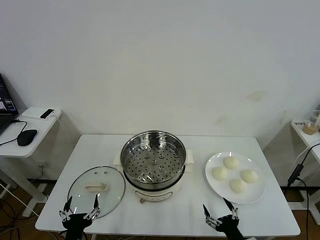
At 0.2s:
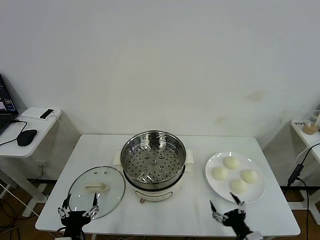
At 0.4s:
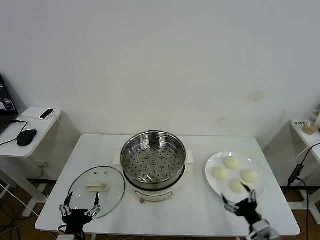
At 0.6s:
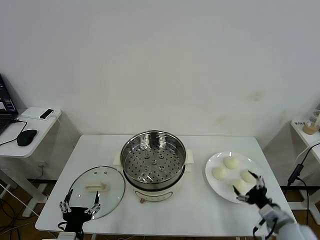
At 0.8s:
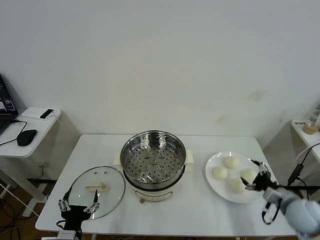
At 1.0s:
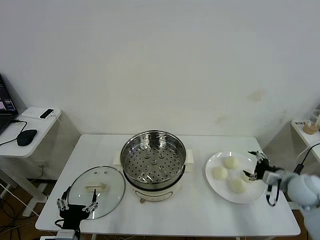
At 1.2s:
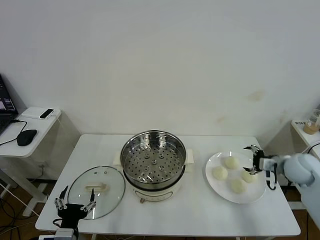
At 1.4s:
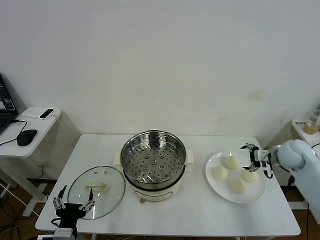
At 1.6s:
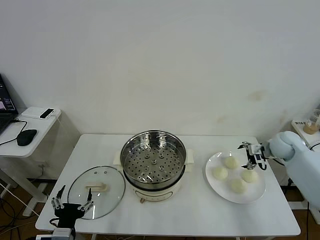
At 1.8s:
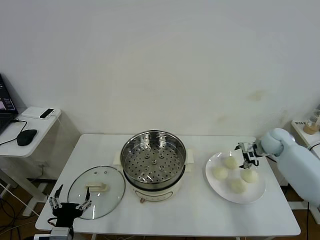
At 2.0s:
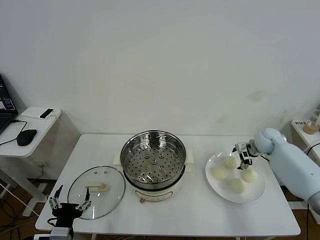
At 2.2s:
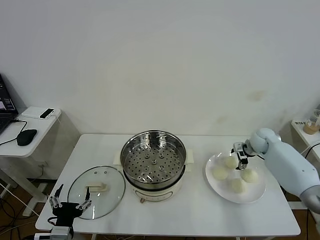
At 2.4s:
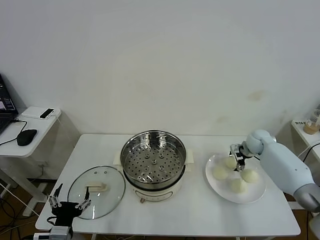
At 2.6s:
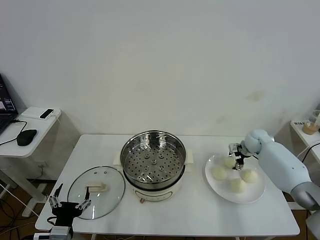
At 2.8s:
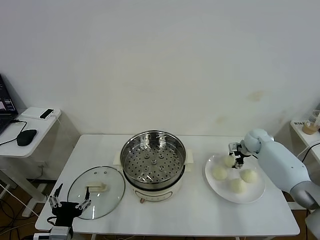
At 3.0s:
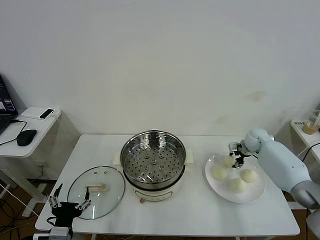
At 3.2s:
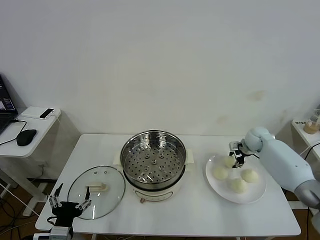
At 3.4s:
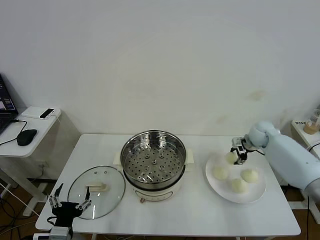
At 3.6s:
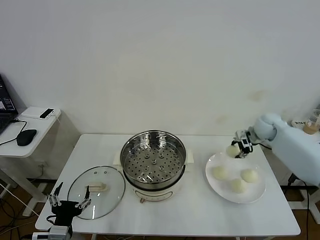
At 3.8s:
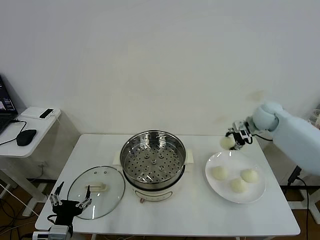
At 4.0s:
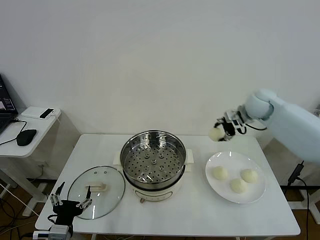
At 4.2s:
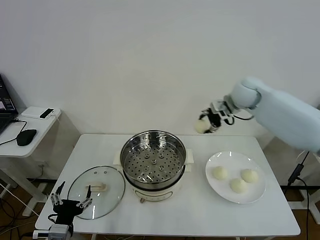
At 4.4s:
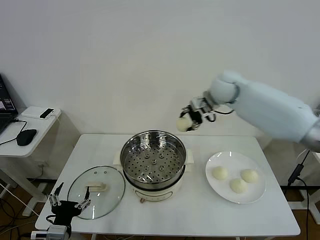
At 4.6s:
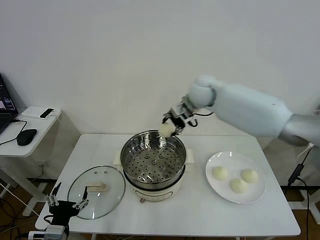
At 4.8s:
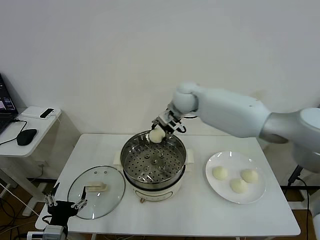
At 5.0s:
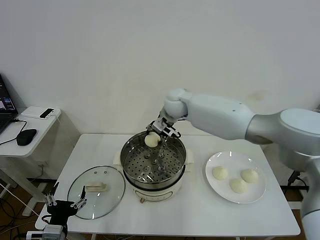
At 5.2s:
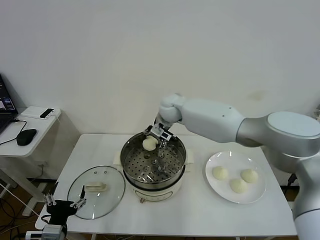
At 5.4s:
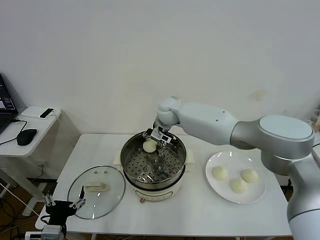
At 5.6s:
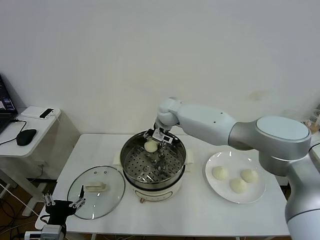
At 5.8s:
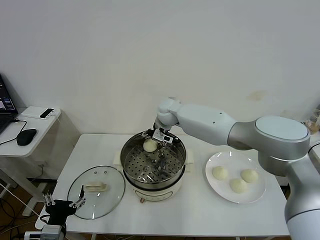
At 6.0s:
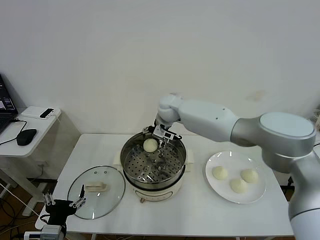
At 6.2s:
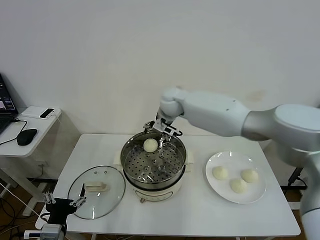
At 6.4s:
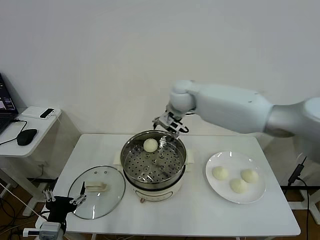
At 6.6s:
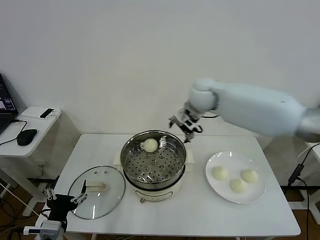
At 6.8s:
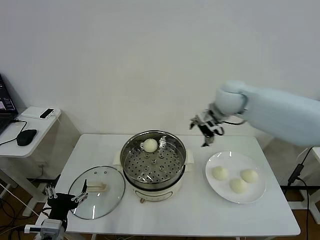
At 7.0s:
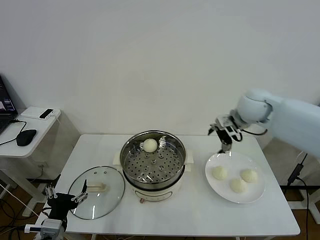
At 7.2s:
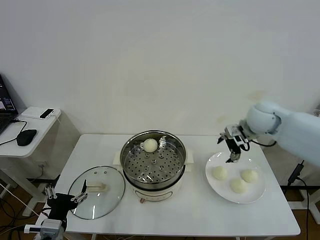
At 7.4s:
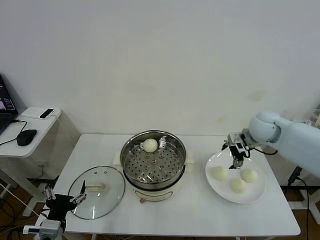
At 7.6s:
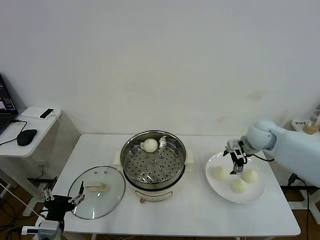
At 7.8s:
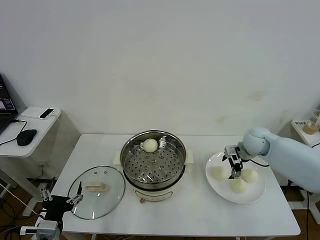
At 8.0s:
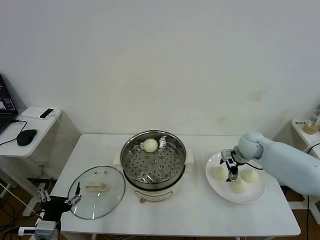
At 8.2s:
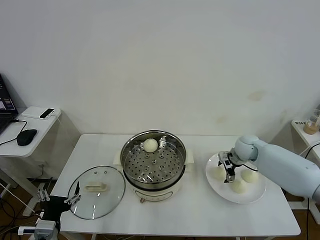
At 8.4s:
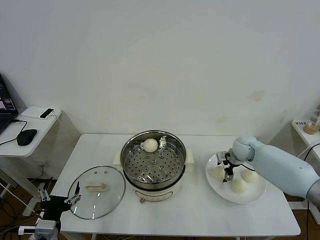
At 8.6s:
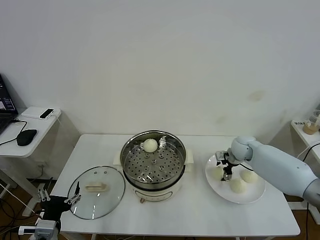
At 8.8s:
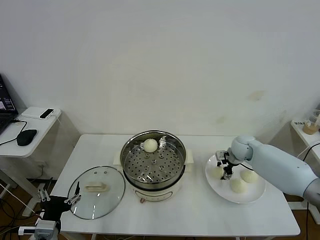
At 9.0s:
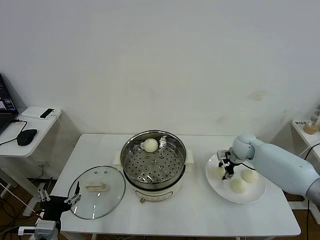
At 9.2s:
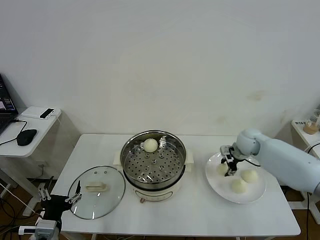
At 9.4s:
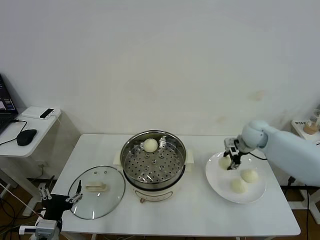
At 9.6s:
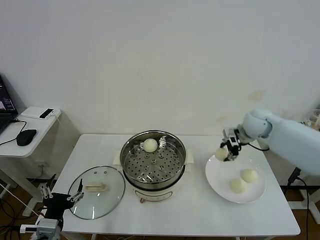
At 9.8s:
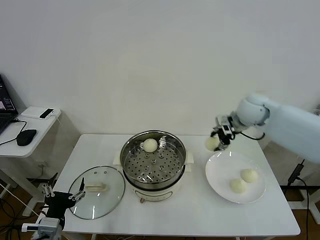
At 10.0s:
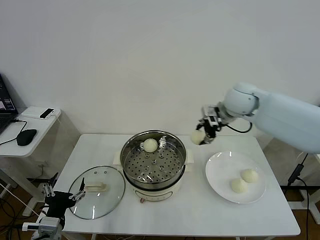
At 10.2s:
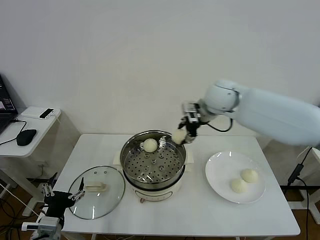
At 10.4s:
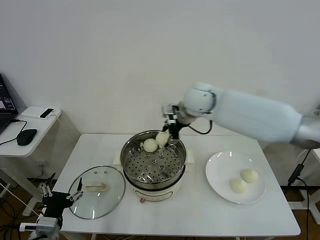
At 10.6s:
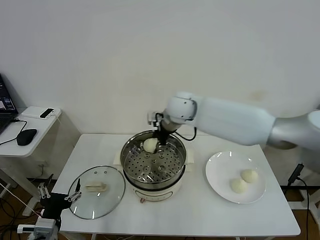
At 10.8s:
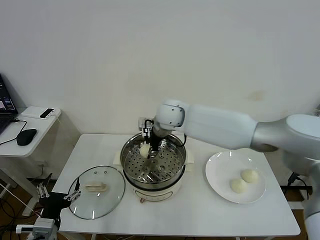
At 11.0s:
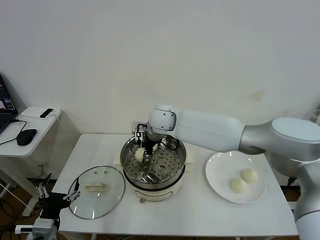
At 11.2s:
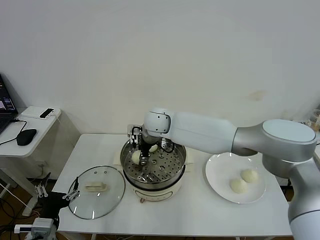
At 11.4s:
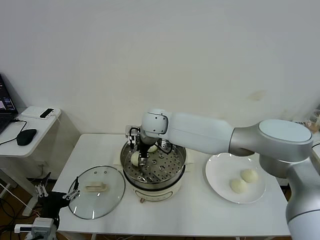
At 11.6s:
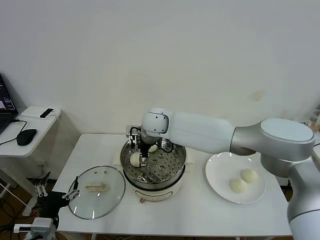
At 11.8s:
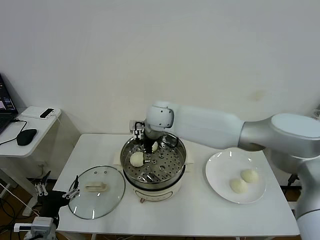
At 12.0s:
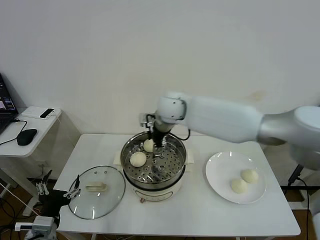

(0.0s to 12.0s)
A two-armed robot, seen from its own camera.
Task of the whole recording: take steamed baozi put them in steamer then cover it.
Step, 0.0s - 2.8s: Grasp the baozi in the plate with right gripper.
Step, 3.0s - 5.8s: Place the baozi on the steamer with right gripper.
Step, 6.0s - 9.0s: Grasp the baozi in the plate with right gripper.
Step, 9.2s - 11.4s: Place the baozi on the steamer with right gripper.
1.6s - 3.0s: The right gripper goes approximately 10 cm forward and downward, and closes up.
3.0s - 4.4s: The right gripper shifts some 30 cm upward and to the left.
4.4s - 6.0s: The right gripper travels to the left and downward by roughly 20 cm, and opens.
6.0s - 7.6s: The right gripper moves to the right, approximately 30 cm.
7.6s - 9.0s: The right gripper travels downward by roughly 10 cm, and closes its fingers.
9.0s - 10.4s: The right gripper heads to the left and upward, covering some 30 cm.
10.4s - 12.0s: The right gripper travels to the left by some 5 cm, and opens up.

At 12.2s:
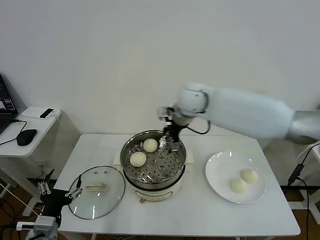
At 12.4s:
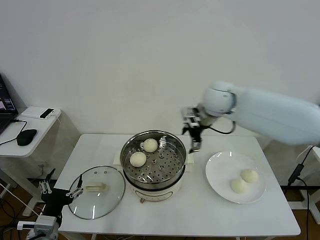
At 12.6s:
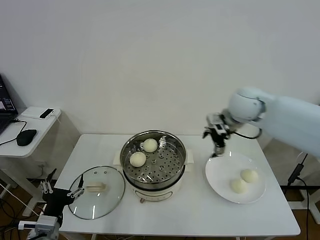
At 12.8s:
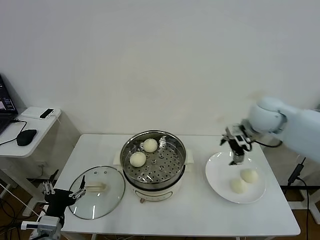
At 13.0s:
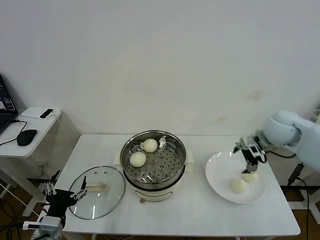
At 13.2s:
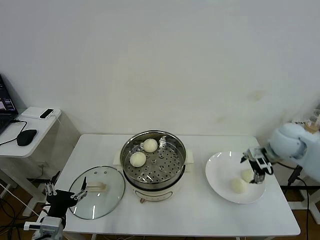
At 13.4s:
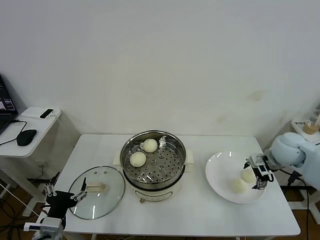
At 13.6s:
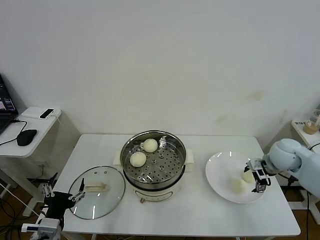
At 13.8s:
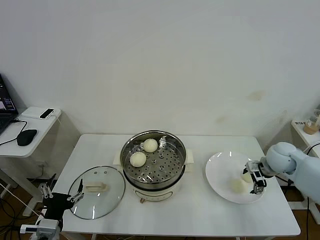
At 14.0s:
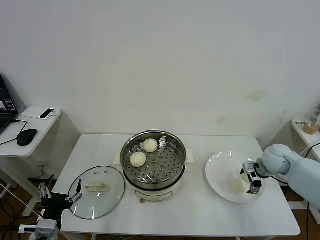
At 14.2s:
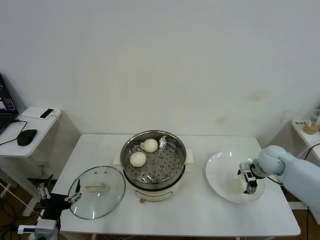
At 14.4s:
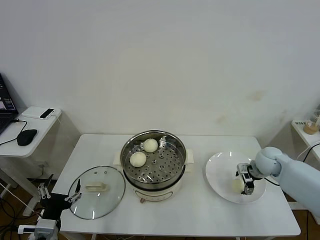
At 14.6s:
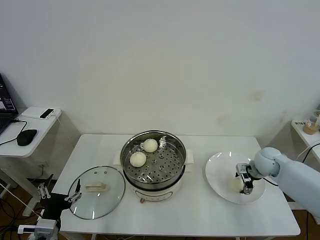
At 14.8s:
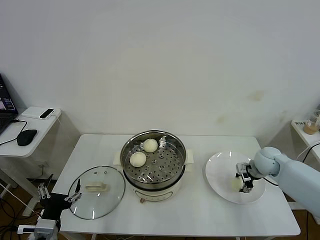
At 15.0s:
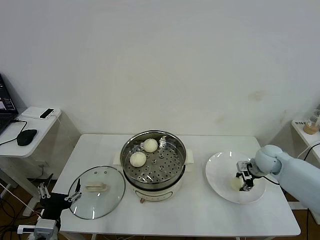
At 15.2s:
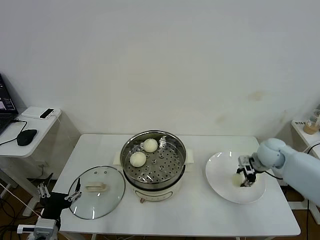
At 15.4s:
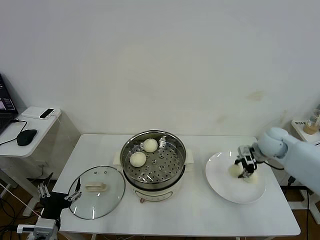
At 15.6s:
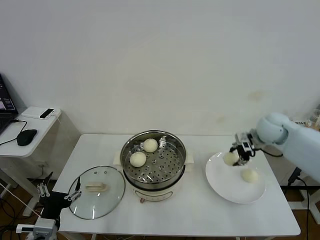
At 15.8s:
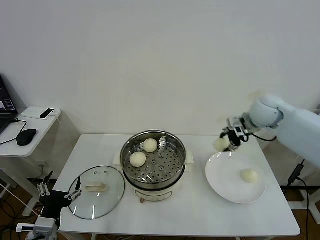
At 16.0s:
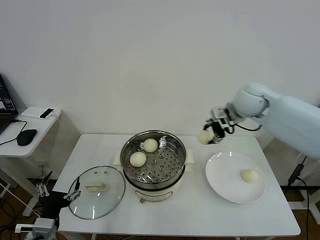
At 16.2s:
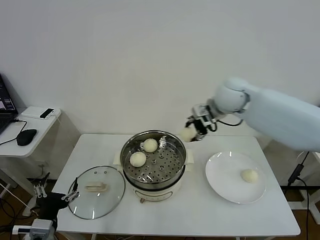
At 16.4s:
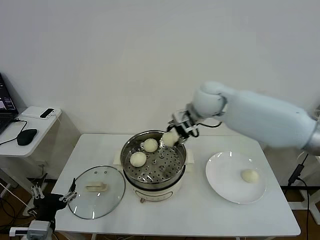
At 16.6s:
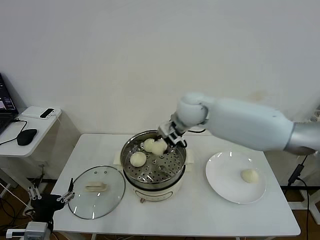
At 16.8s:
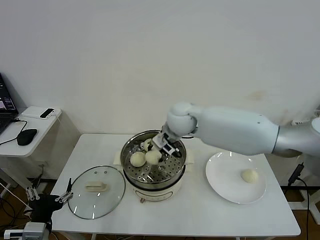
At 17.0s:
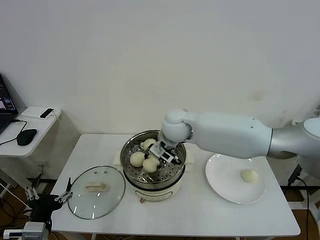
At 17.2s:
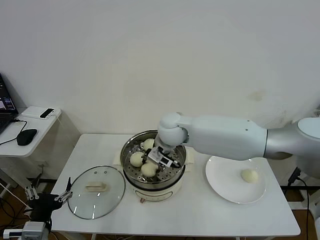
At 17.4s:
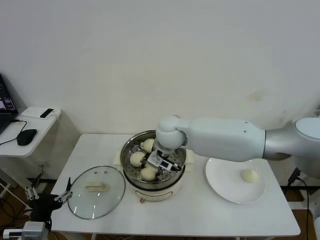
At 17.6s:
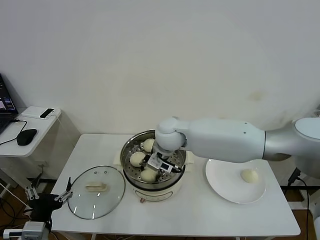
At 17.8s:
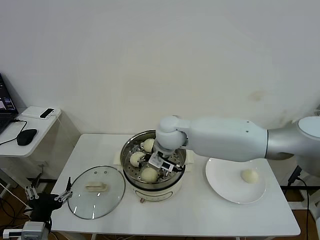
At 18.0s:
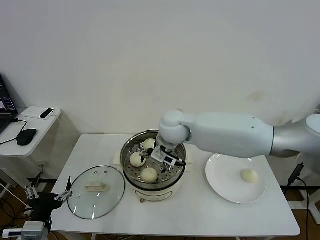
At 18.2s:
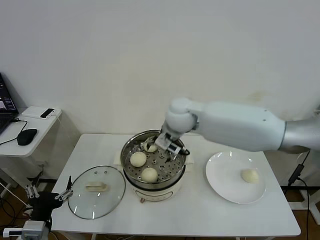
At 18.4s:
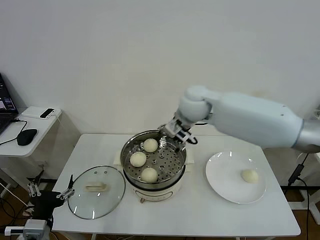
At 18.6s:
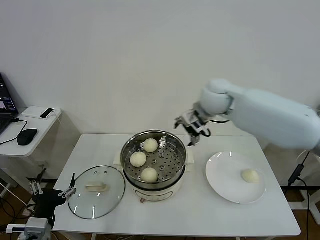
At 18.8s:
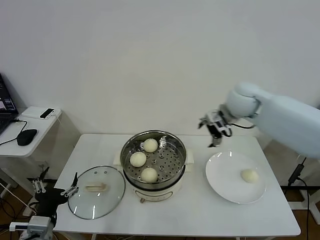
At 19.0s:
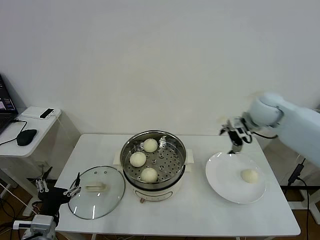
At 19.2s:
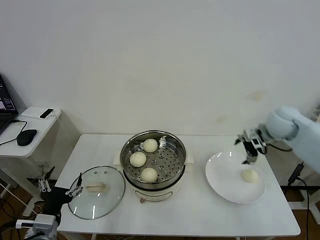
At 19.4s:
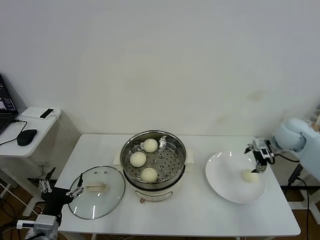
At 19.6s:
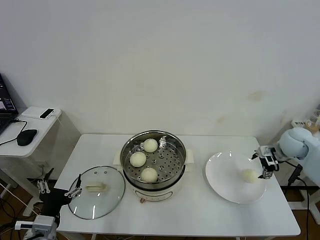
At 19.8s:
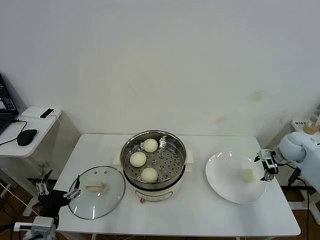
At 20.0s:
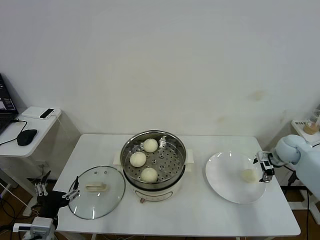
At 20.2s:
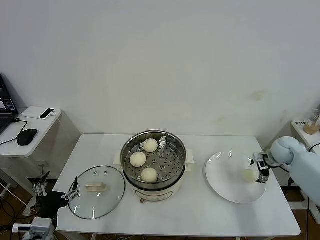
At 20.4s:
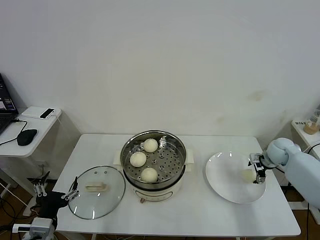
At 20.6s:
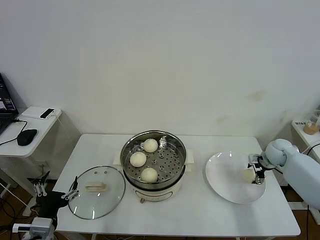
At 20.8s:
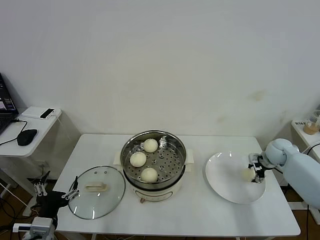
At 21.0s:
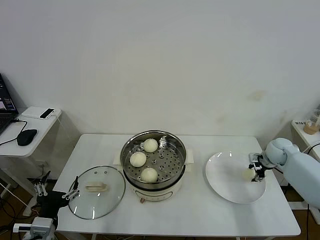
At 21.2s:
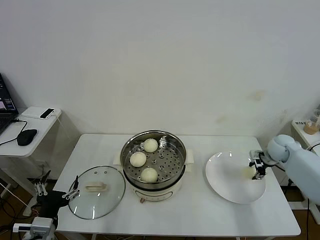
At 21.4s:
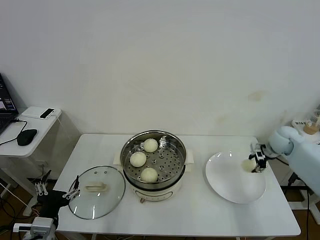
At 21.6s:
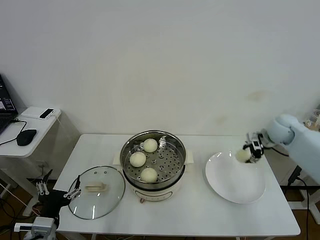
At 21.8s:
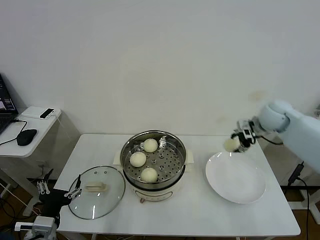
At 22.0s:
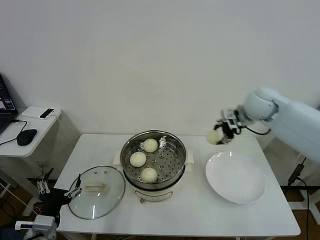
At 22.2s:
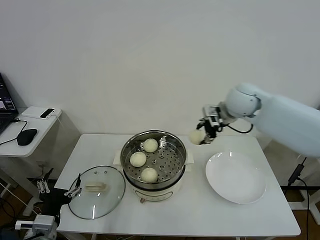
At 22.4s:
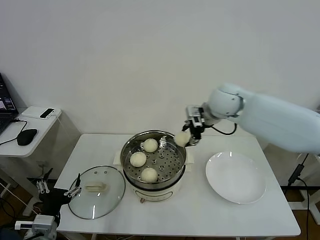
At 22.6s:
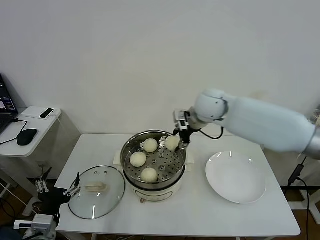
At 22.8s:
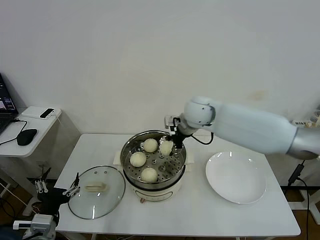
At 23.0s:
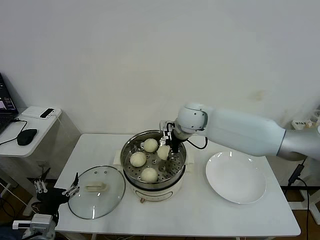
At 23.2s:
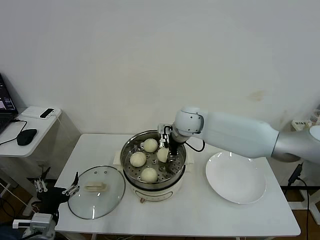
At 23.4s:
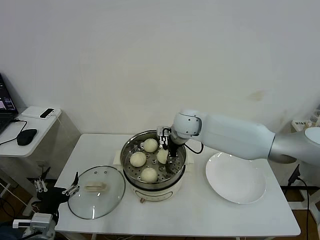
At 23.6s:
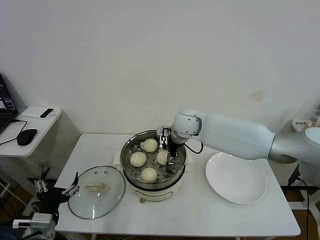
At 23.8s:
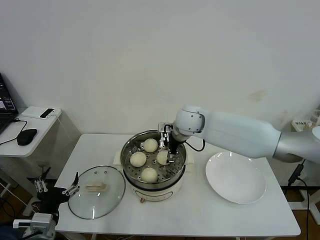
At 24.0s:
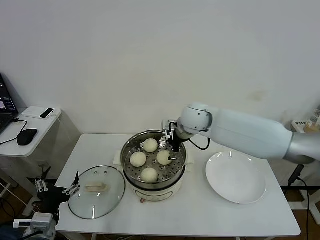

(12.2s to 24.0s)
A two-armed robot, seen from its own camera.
Task of the whole recording: take steamed baozi put them in steamer then cover it.
Step, 12.2s - 15.0s: Grasp the baozi in the plate with right gripper.
Step, 15.2s - 18.0s: Place the baozi on the steamer with right gripper.
Step, 18.2s - 21.0s: Grasp the baozi in the plate with right gripper.
Step, 21.2s - 23.8s: Place the baozi on the steamer with right gripper.
12.2s - 13.6s: The right gripper moves to the right and downward, some 35 cm.
13.6s - 15.2s: The right gripper closes its fingers.
15.2s - 16.6s: The right gripper heads to the left and upward, covering approximately 35 cm.
16.6s - 18.2s: The right gripper opens up.
18.2s - 19.6s: The right gripper heads to the right, covering some 40 cm.
19.6s - 21.0s: The right gripper heads downward, covering approximately 10 cm, and closes up.
21.0s - 22.6s: The right gripper goes approximately 35 cm to the left and upward.
22.6s - 24.0s: The right gripper opens its fingers.
